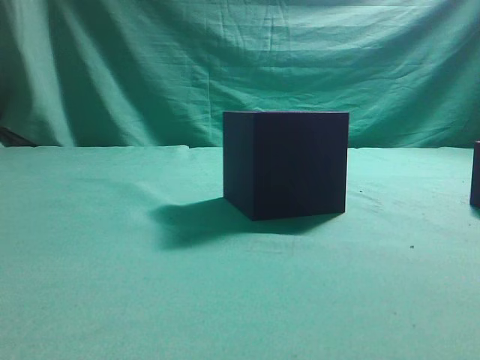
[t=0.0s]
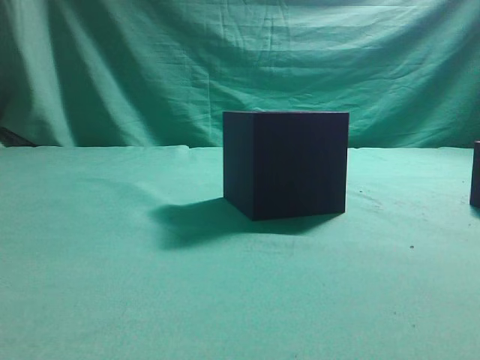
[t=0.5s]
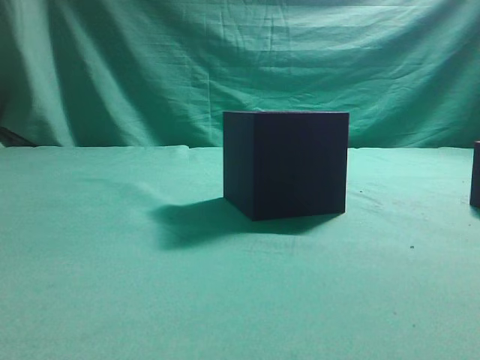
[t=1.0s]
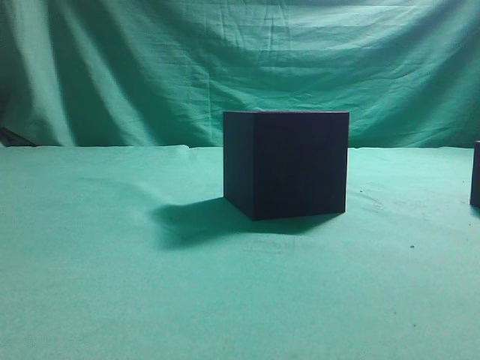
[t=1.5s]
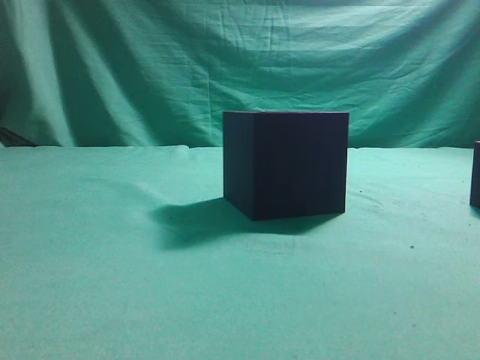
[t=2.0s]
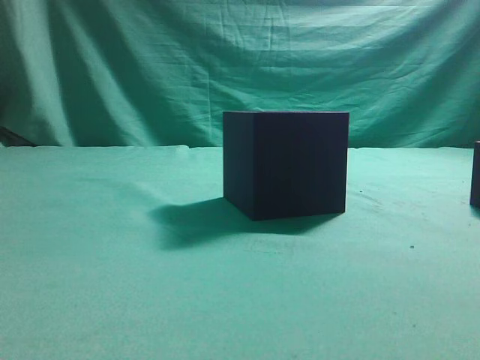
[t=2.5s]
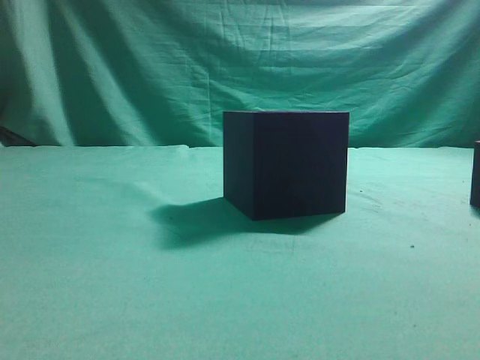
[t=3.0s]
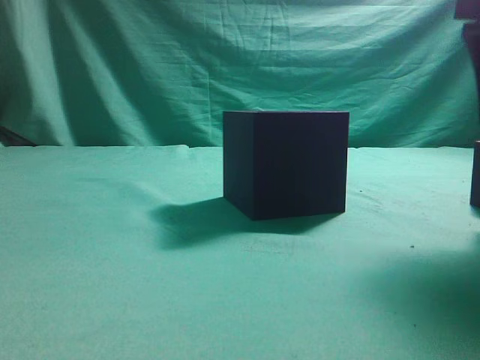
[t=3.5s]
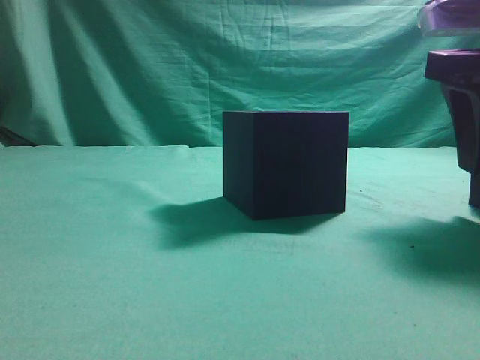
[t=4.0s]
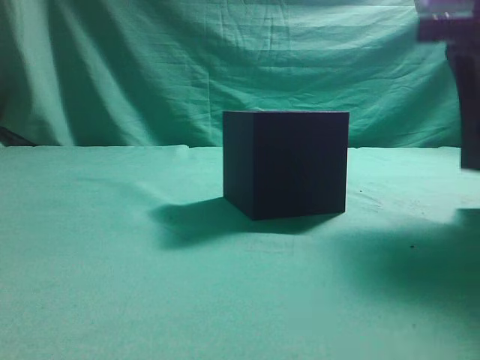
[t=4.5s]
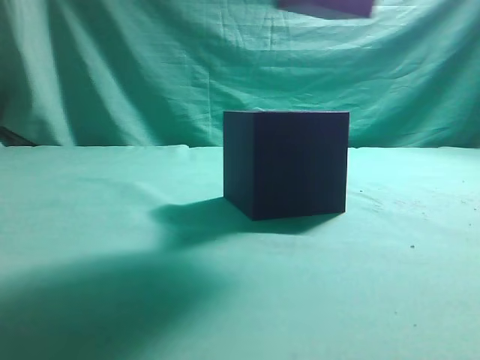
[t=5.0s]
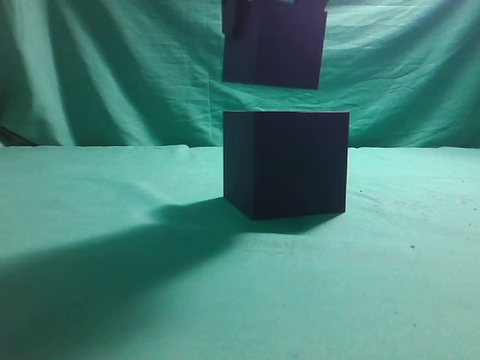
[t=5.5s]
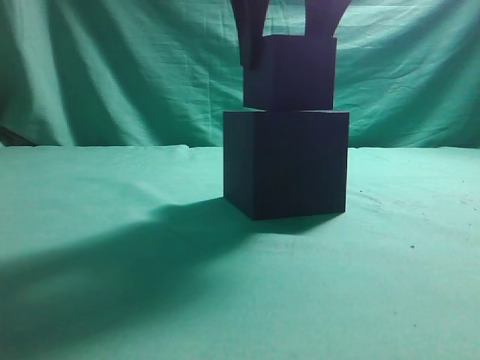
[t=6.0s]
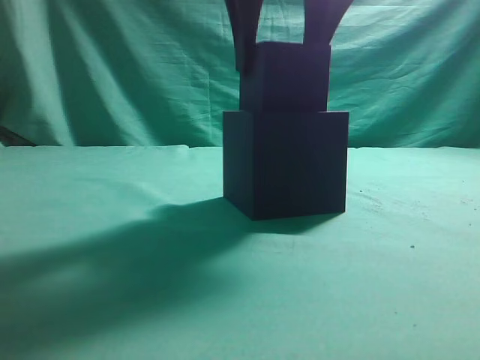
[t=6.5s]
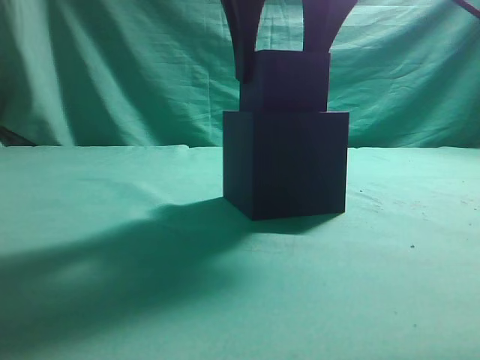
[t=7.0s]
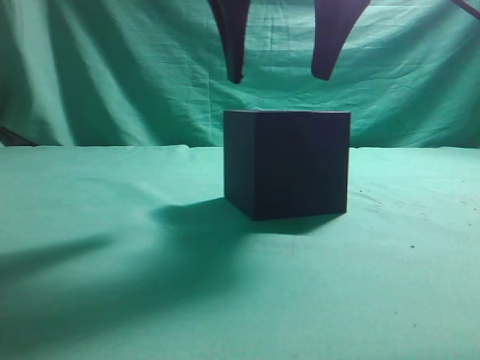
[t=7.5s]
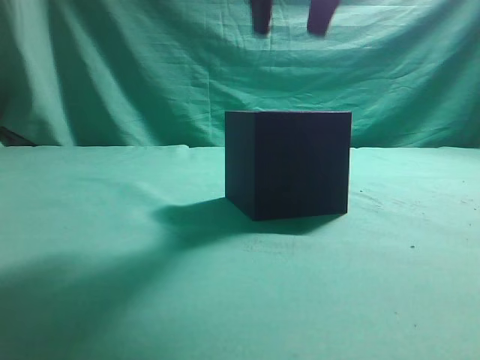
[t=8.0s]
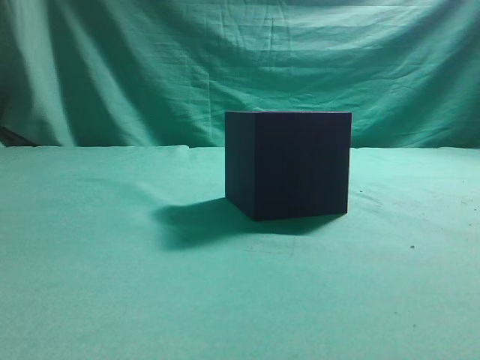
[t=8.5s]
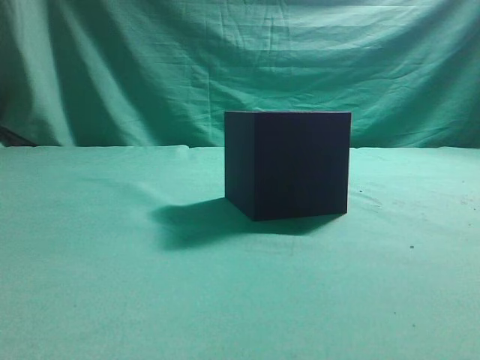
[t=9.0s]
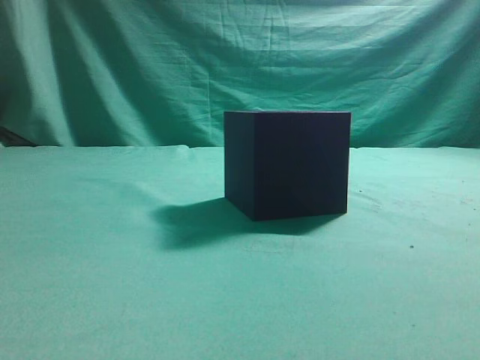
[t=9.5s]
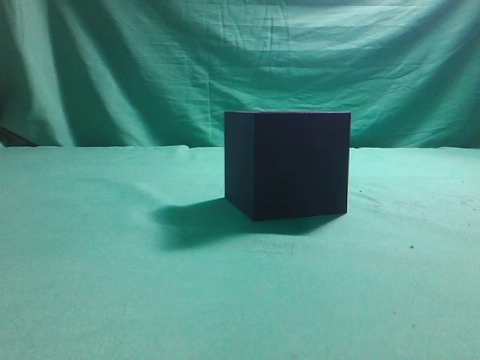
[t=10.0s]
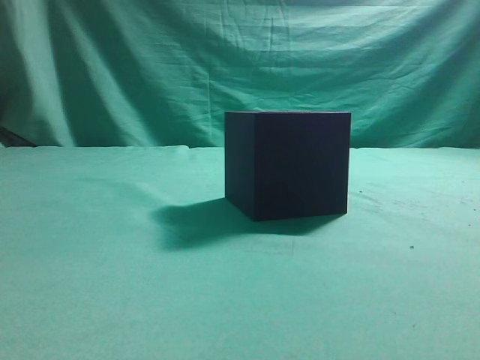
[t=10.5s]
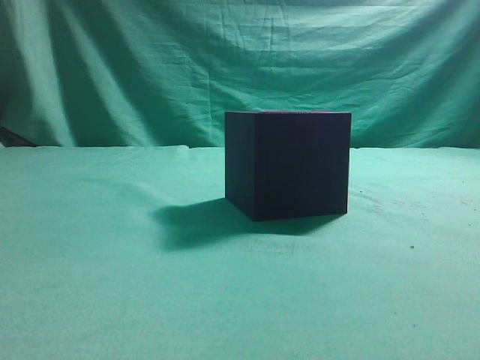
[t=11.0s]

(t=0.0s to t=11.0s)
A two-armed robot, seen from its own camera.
Task of the whole recording: pick up the cube block and place it into the cube groove.
Step, t=0.0s - t=4.5s: Grasp the cube.
Step, t=5.0s - t=7.5s: Place cube into the cube-shaped recess.
t=2.0s - t=3.5s: The right gripper moves forward, about 20 cm, and opens up.
t=3.5s - t=5.5s: The right gripper is displaced to the left by some 15 cm.
t=5.5s - t=7.5s: The grippers make only small movements.
t=7.5s - t=9.0s: The right gripper travels backward, to the right and upward by roughly 30 cm, and closes.
